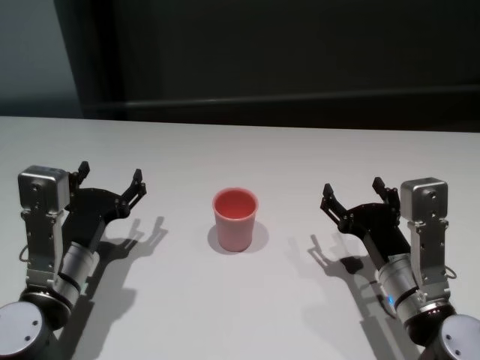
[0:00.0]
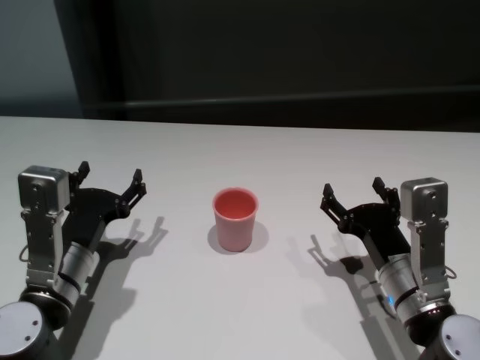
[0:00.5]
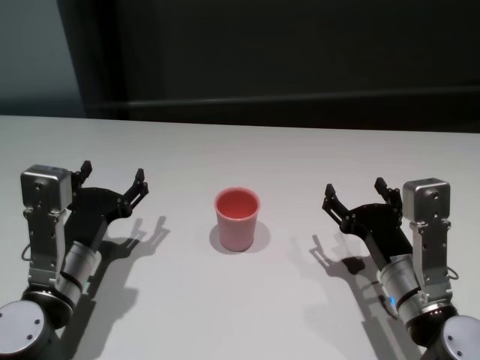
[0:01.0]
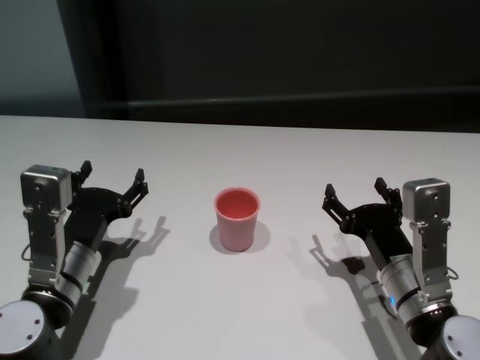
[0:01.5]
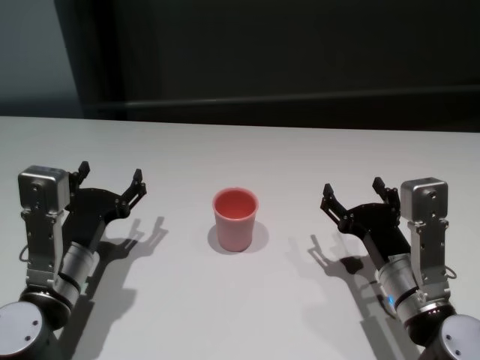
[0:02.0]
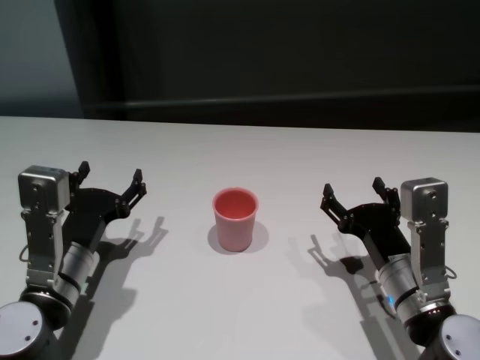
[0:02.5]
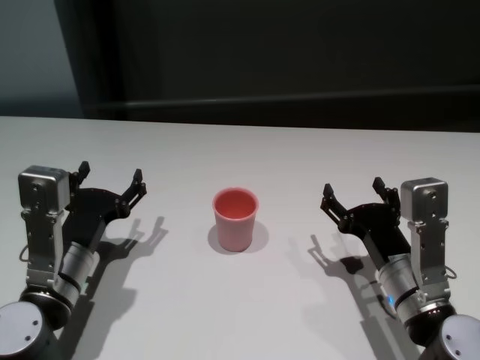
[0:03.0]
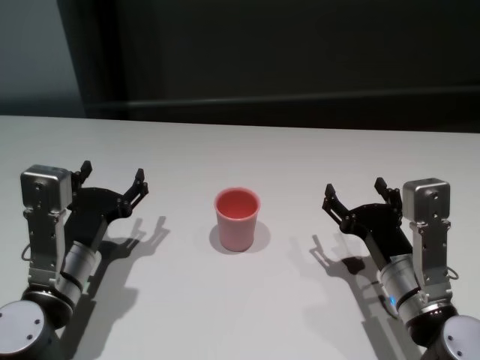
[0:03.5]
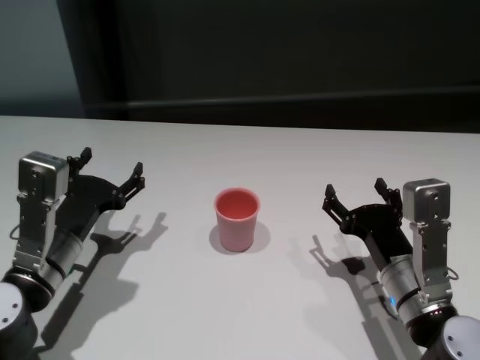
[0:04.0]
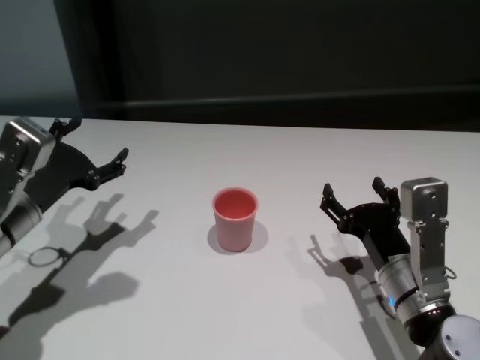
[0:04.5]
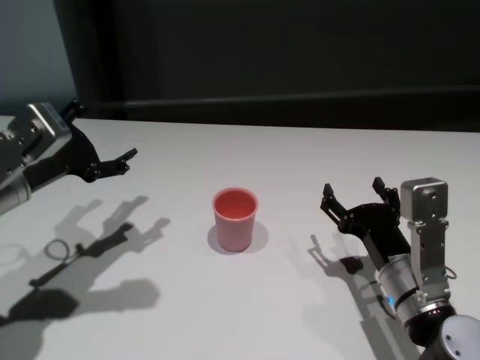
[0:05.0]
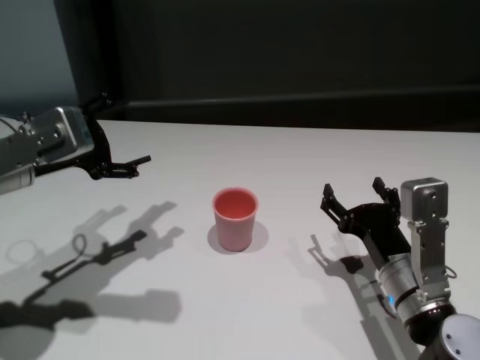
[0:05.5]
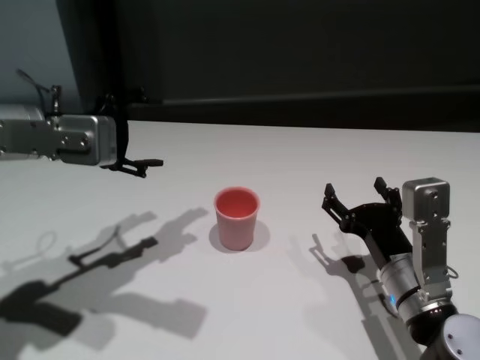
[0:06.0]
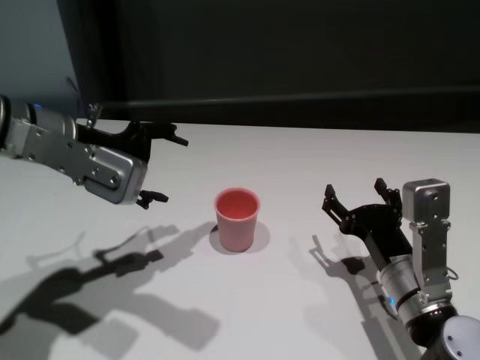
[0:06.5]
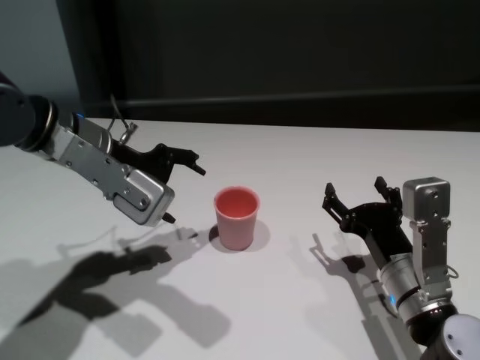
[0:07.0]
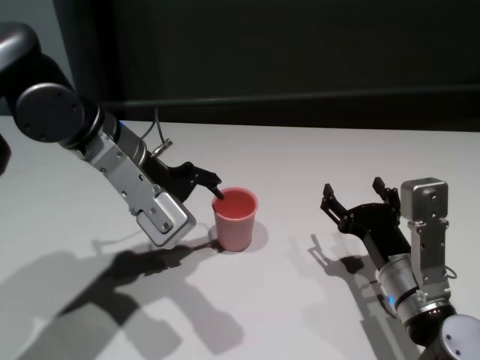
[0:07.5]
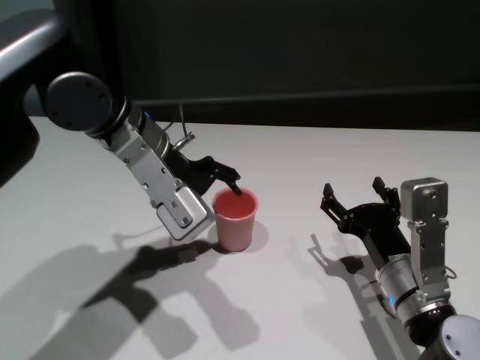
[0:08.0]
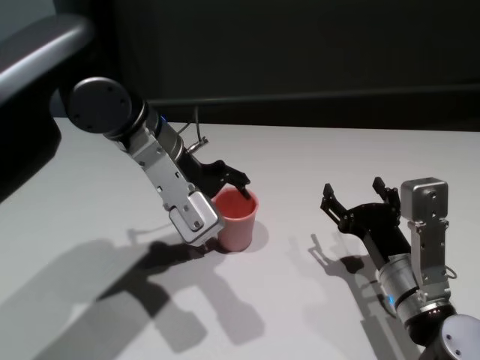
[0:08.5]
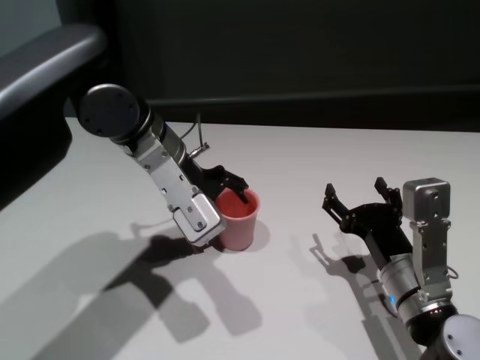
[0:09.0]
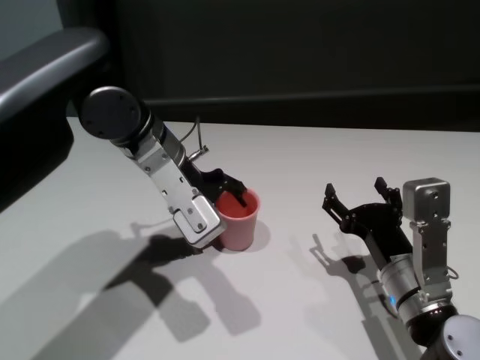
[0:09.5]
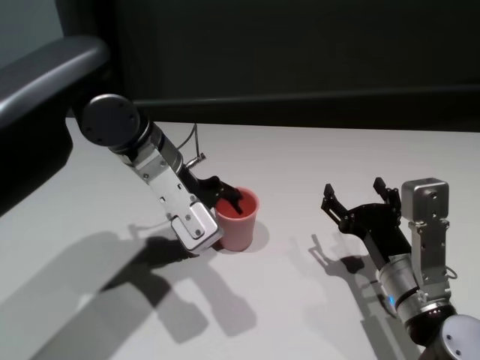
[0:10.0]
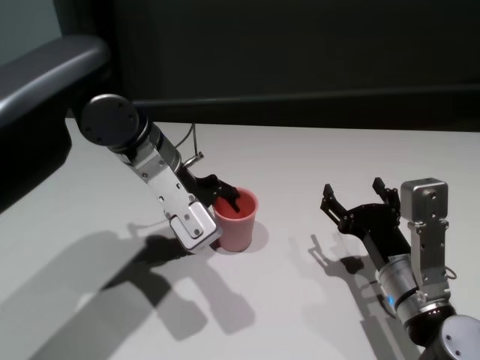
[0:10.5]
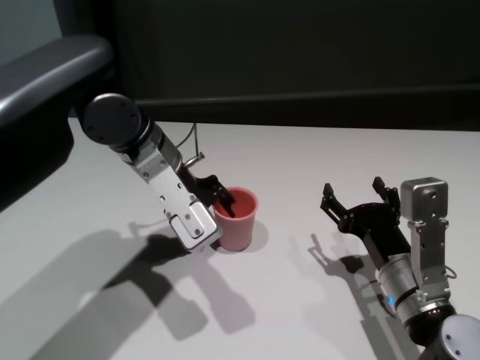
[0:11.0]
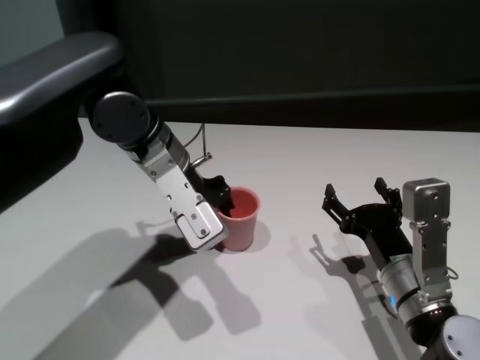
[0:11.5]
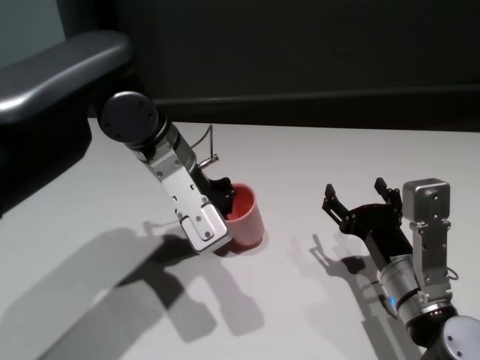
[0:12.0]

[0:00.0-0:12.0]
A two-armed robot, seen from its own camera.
Task of the whole recording: On the white table pick up the cup with one hand and transfer it to the other hand before turning it over.
Step, 0:00.0 to 0:11.5: Grasp the cup with left gripper.

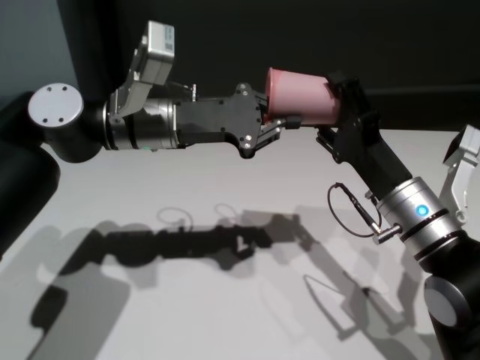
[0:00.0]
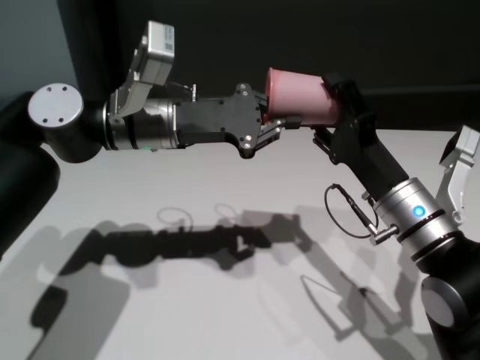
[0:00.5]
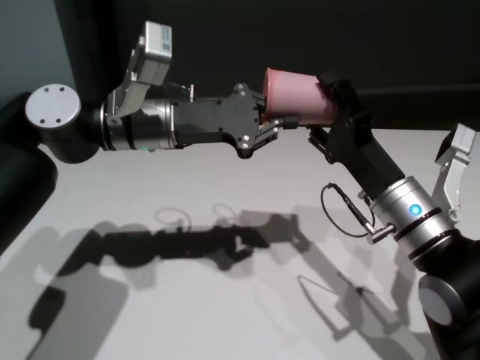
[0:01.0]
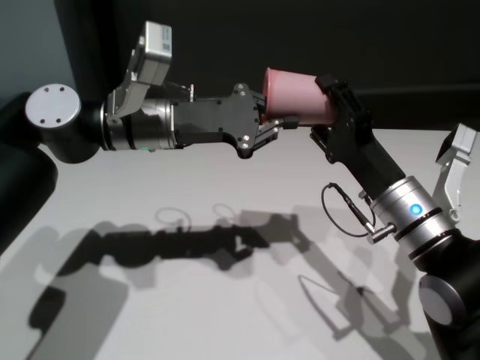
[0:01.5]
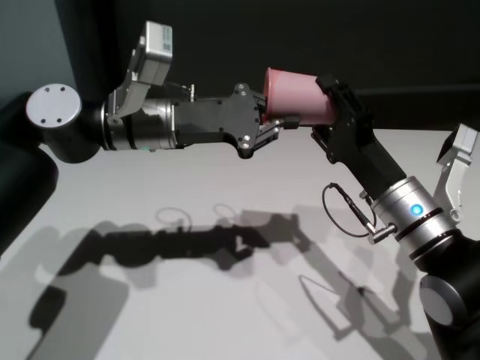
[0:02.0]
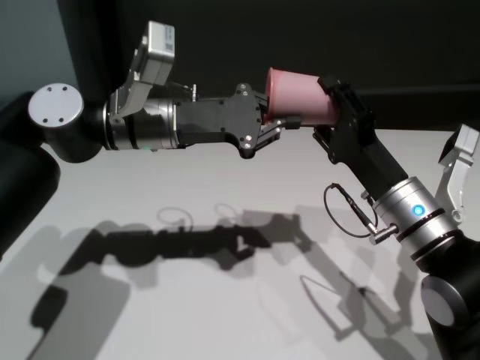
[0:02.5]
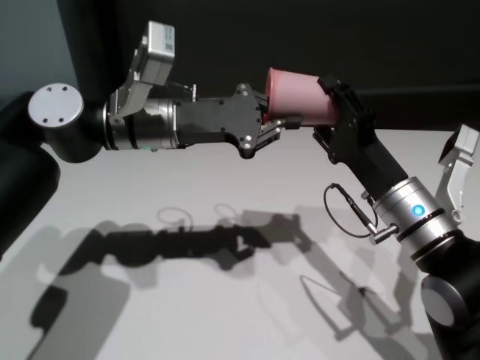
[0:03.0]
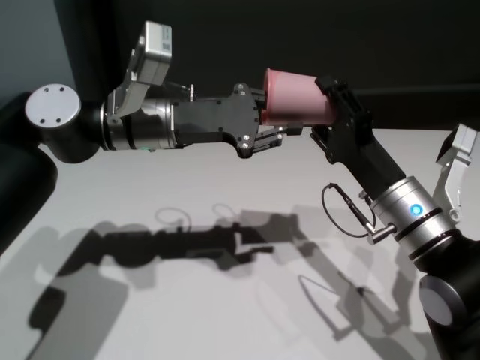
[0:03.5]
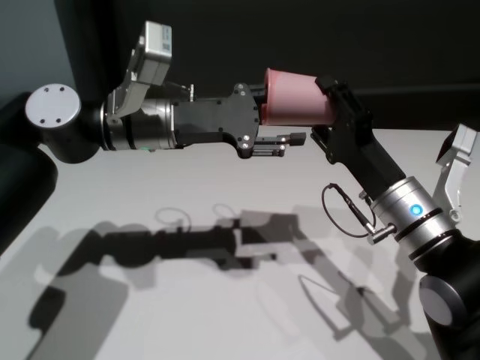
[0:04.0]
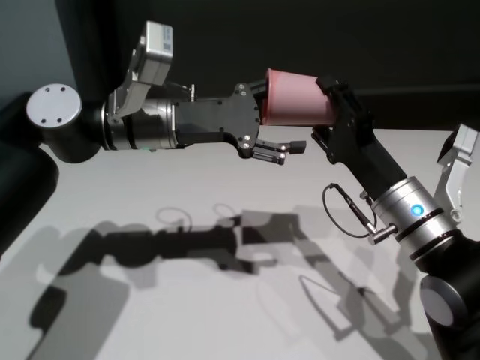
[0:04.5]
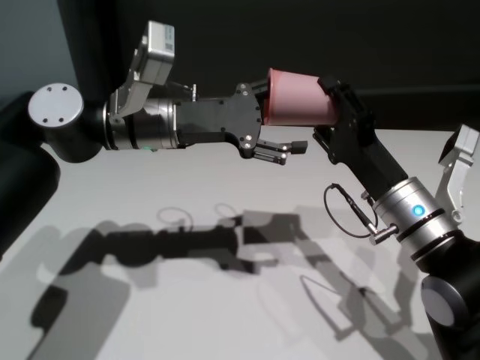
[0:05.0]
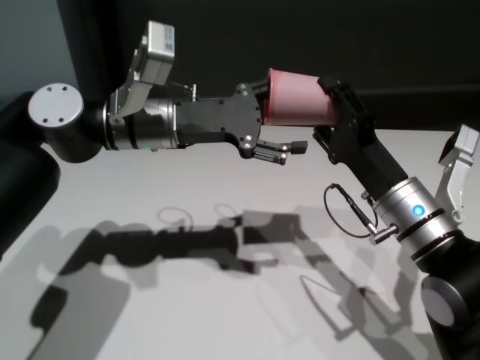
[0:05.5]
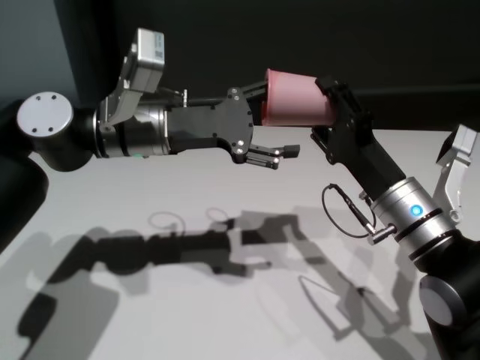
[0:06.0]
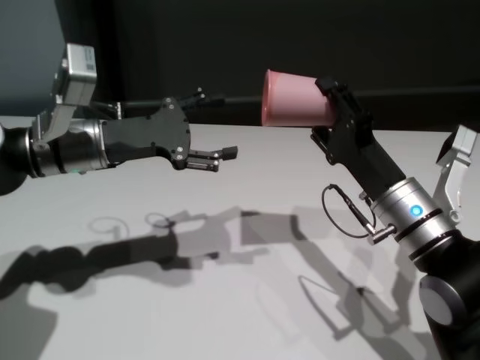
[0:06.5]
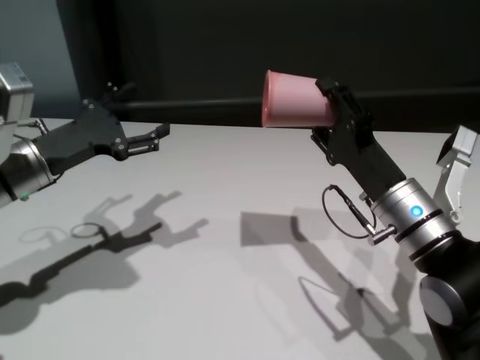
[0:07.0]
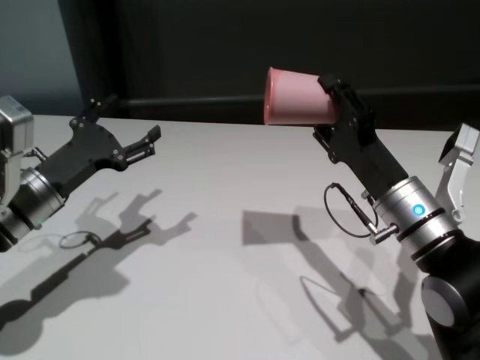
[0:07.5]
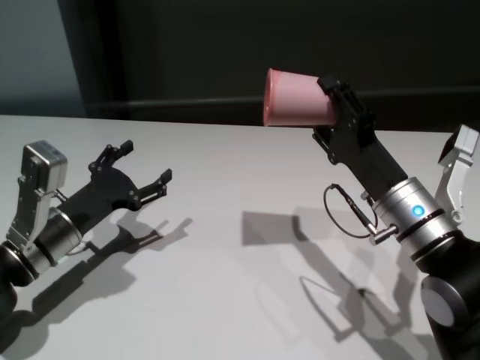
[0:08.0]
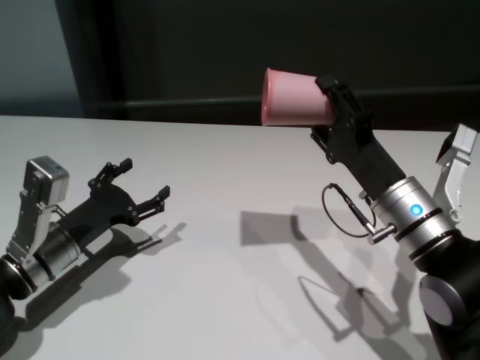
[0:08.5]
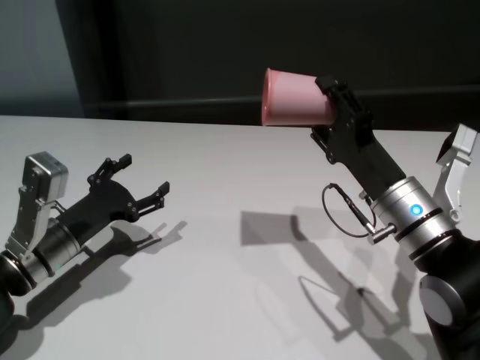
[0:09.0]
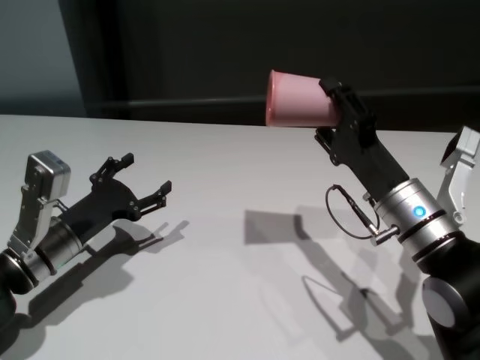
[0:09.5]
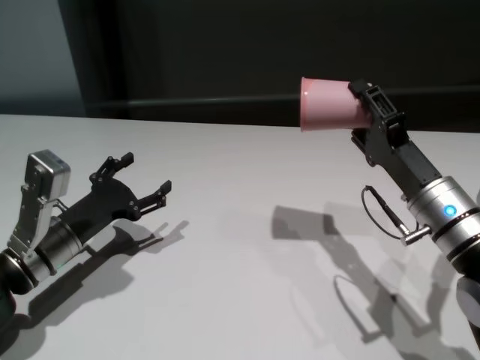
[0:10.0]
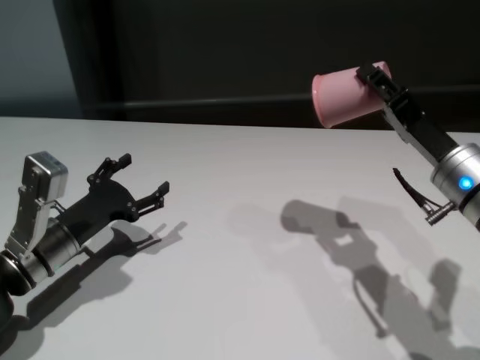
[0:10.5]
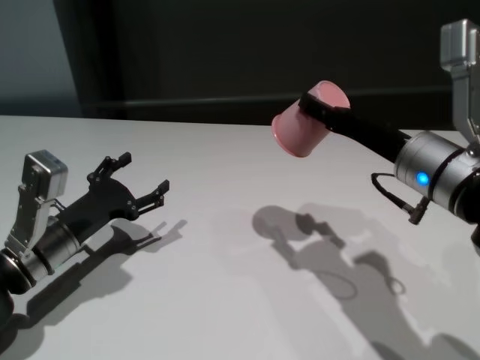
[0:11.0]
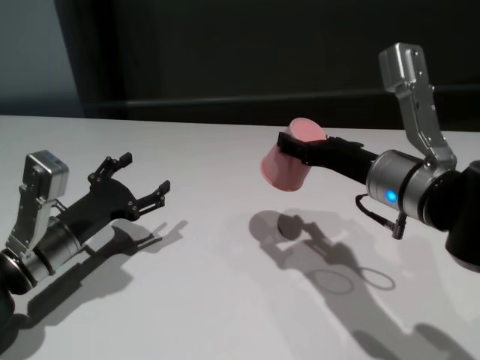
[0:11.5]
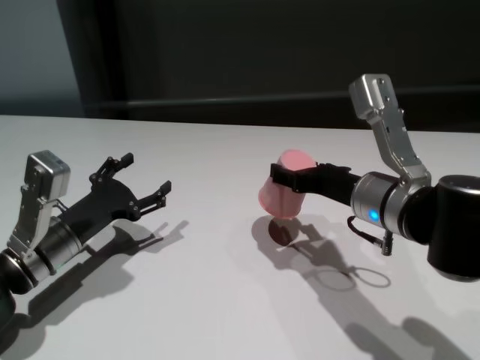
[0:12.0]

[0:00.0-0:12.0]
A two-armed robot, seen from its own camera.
Task of the whole recording: On the white table pick up the cup with one hand and transfer it to the other hand before turning it over.
Step, 0:00.0 to 0:06.0: Pass the cup to the right gripper.

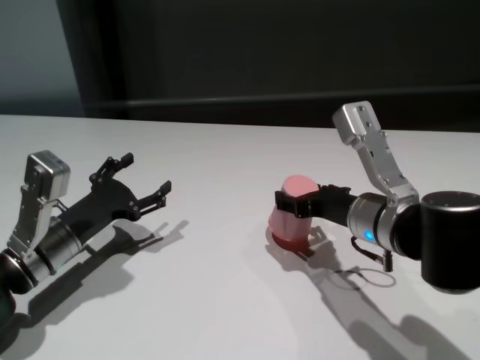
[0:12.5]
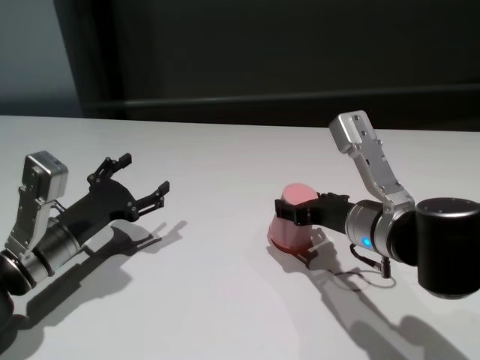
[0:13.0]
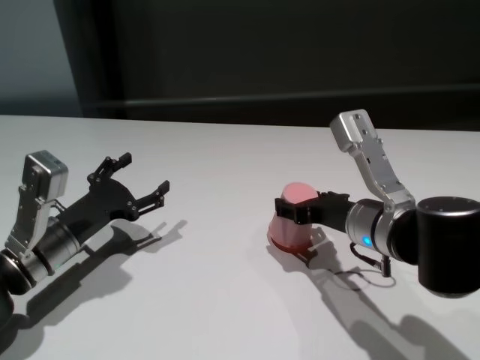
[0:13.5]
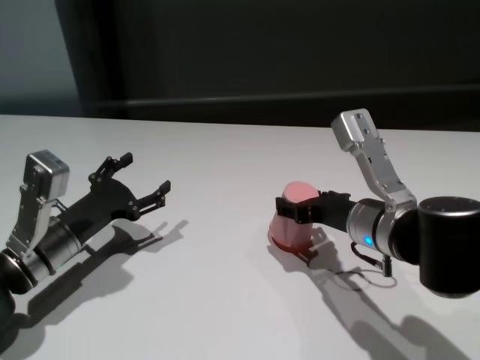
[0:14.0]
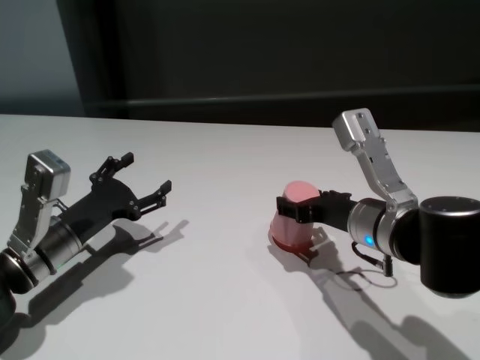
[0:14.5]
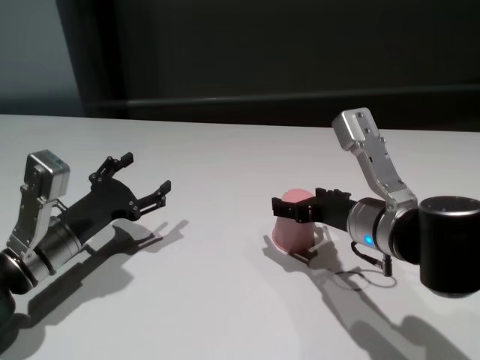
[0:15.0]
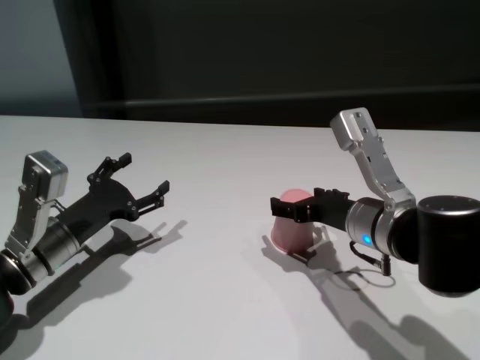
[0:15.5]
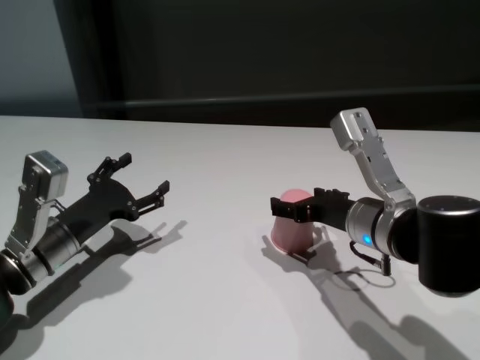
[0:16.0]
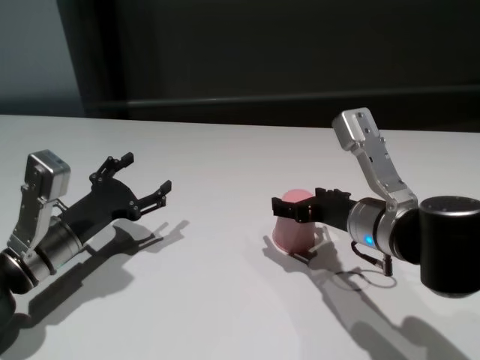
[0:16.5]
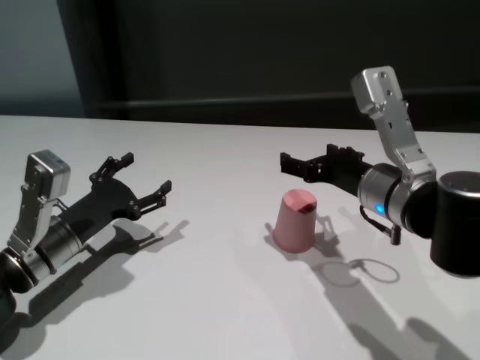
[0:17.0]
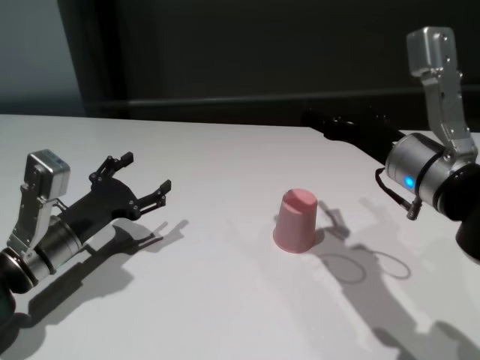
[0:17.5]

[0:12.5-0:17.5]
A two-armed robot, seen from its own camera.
Task of the whole recording: On the white table pick up the cup with one hand and transfer it to the other hand before turning it over.
Step, 0:12.5 to 0:16.5: Place the cup on the table with right gripper.
